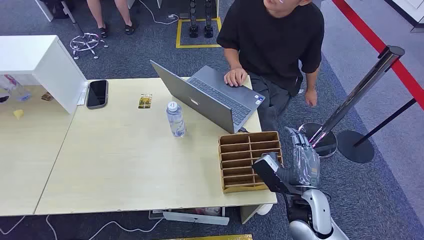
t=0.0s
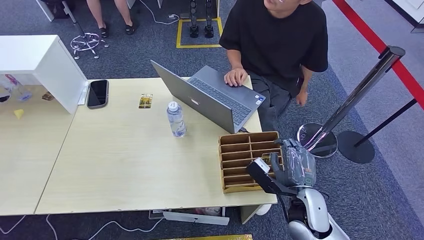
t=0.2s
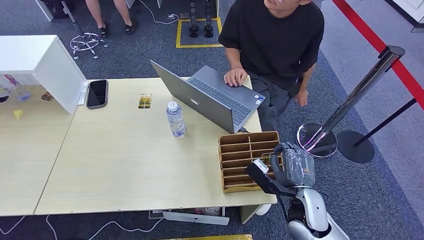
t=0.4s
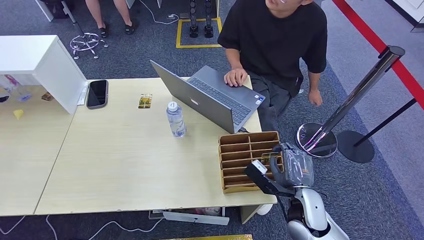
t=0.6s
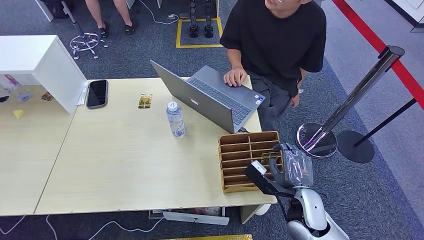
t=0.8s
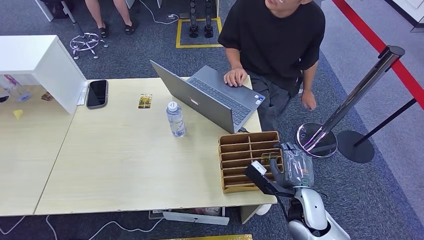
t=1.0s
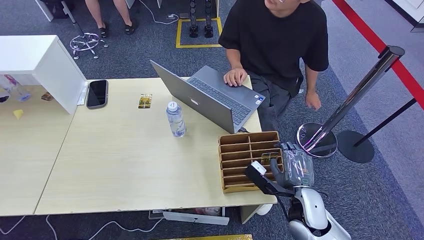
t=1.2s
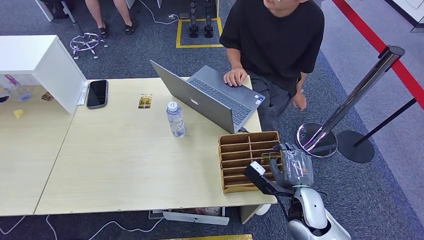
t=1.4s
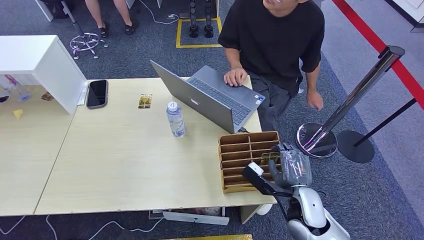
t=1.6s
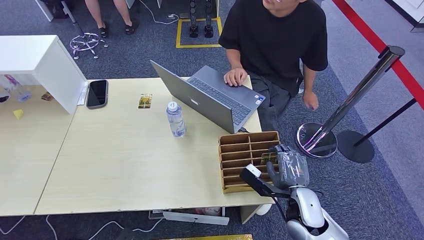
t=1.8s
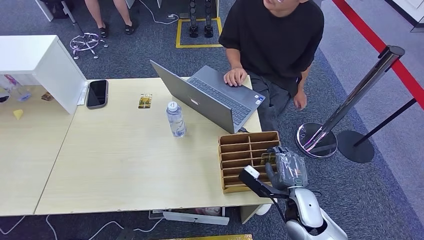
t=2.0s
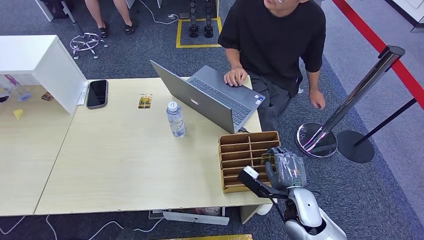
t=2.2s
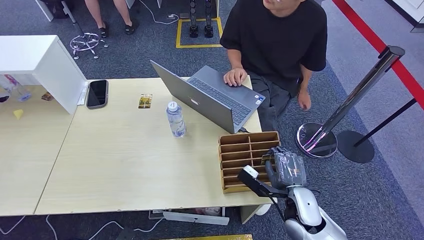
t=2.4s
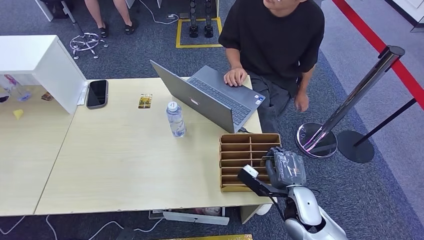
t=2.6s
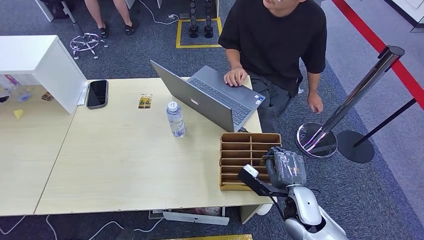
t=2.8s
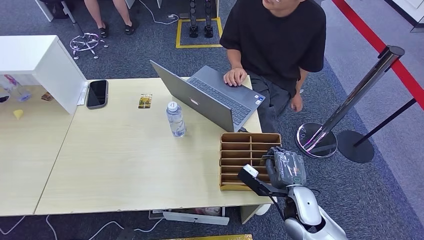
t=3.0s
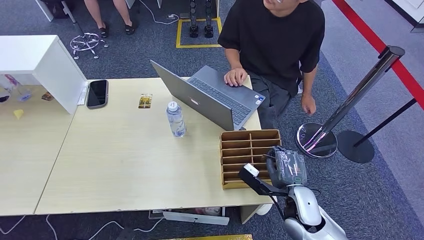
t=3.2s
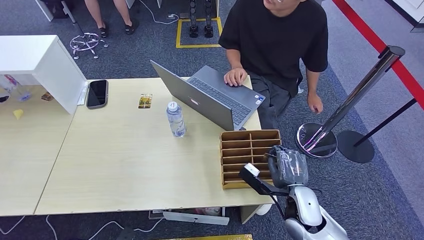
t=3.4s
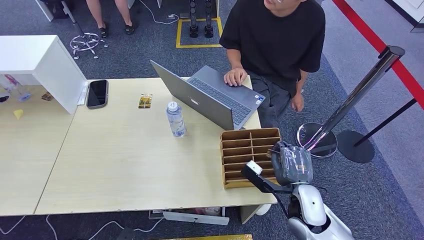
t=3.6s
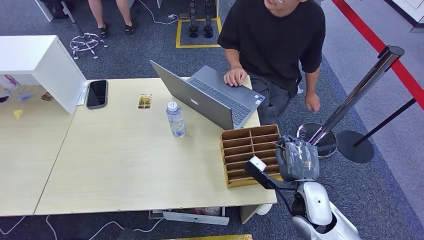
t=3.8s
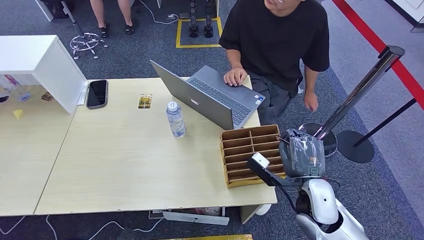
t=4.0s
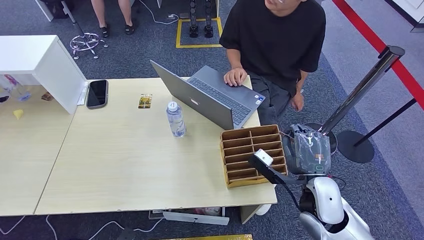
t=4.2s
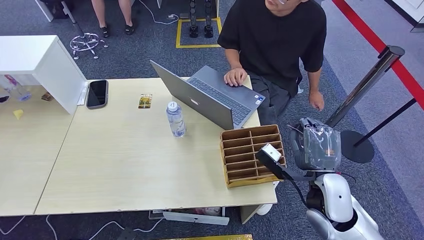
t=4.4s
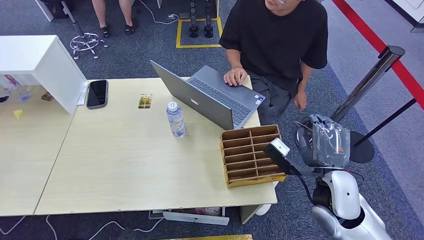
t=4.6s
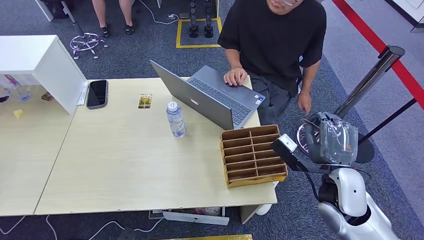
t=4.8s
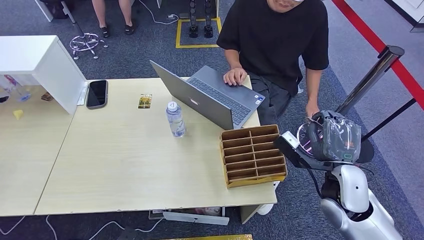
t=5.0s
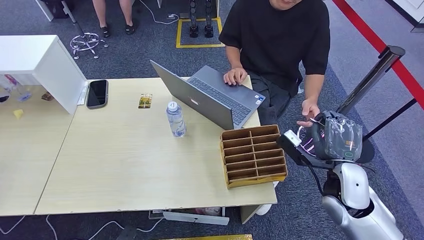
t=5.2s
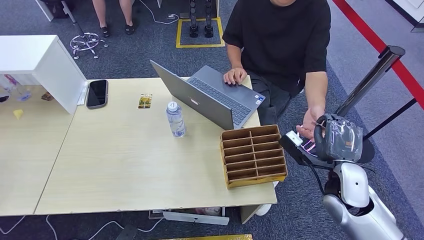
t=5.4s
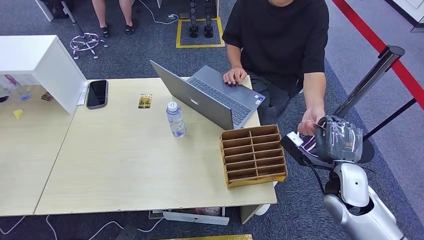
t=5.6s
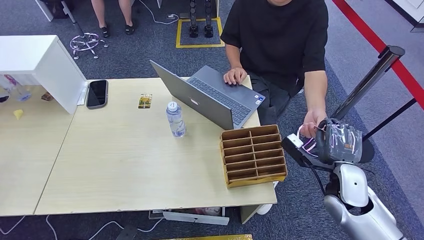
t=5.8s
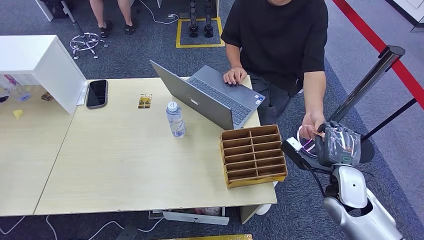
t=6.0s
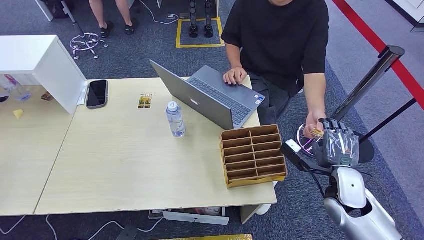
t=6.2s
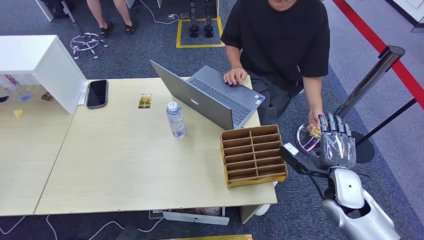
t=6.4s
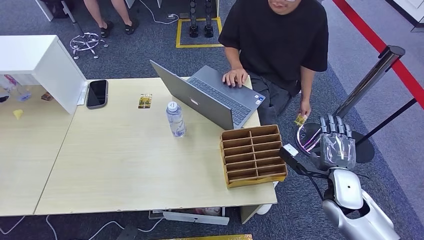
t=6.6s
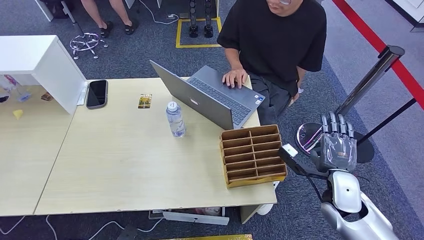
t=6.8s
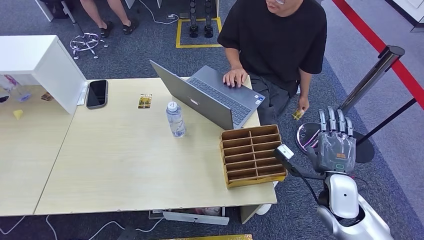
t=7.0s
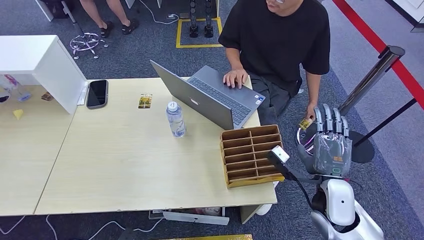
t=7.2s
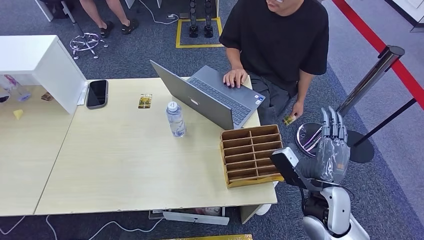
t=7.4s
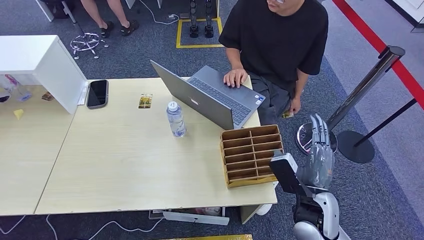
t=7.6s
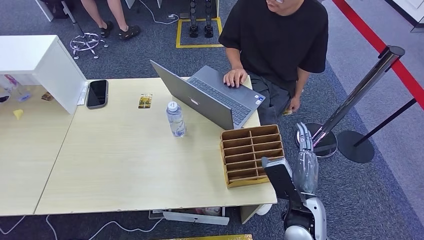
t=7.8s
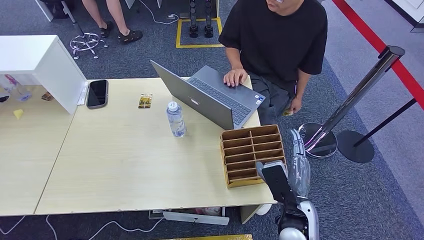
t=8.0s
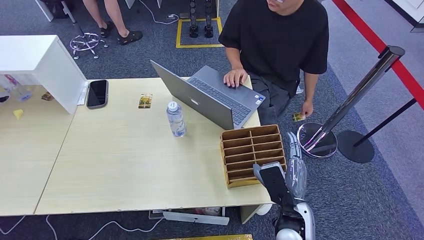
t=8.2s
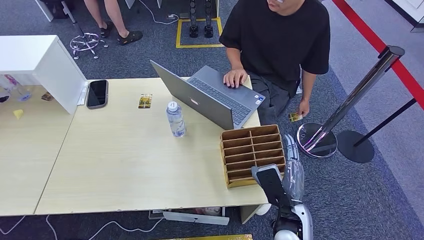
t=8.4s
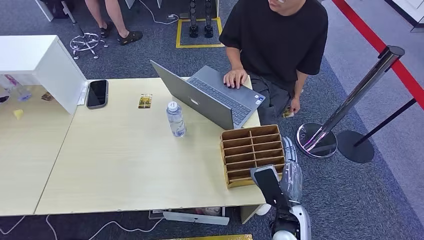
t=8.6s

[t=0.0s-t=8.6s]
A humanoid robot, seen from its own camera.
Step, t=0.0s to t=4.0s: Pick up the room card from the card holder.
Step, t=4.4s to t=8.4s: Hand the room card to the target.
t=1.4s to t=2.8s: There are only small adjustments of the hands.
t=2.8s to t=4.4s: The right hand is displaced upward by some 10 cm.
t=4.4s to t=5.8s: The right hand is displaced to the right by approximately 5 cm.
t=5.8s to t=7.2s: The right hand shifts by some 5 cm.
t=7.2s to t=8.6s: The right hand heads to the left and downward, covering about 10 cm.
